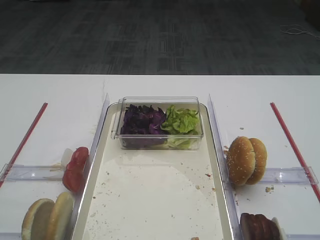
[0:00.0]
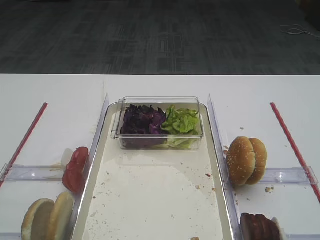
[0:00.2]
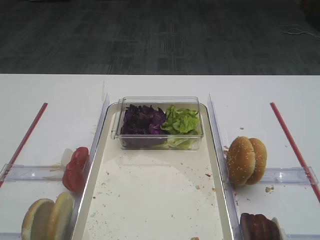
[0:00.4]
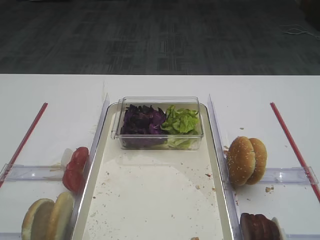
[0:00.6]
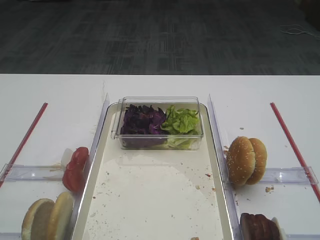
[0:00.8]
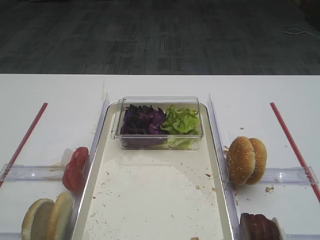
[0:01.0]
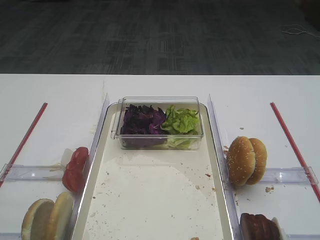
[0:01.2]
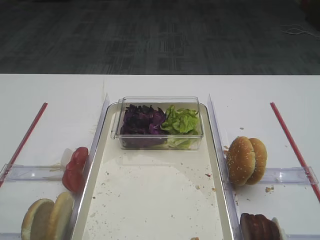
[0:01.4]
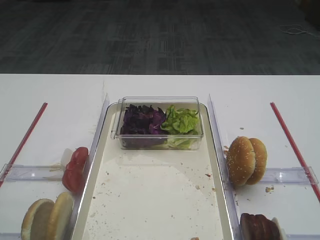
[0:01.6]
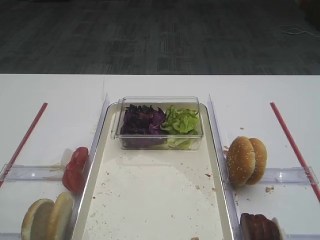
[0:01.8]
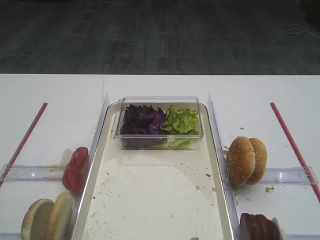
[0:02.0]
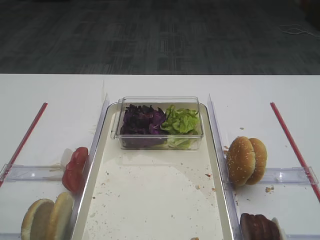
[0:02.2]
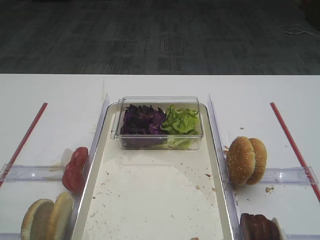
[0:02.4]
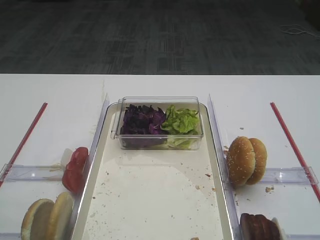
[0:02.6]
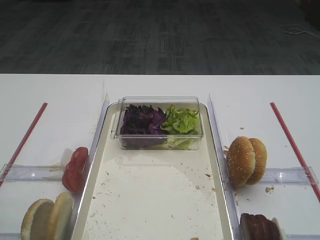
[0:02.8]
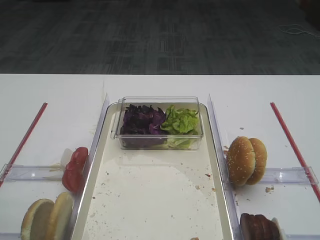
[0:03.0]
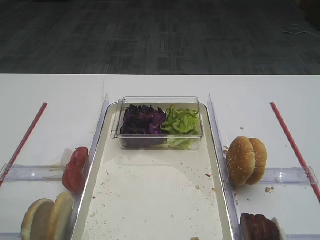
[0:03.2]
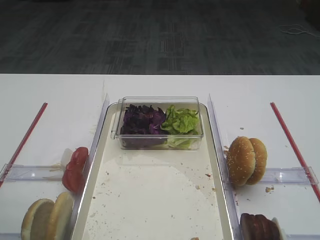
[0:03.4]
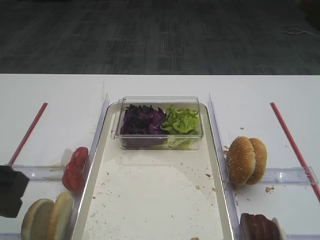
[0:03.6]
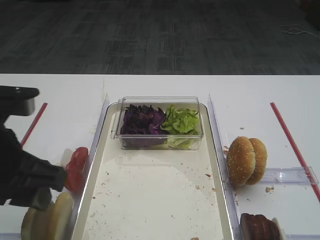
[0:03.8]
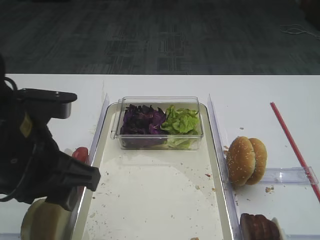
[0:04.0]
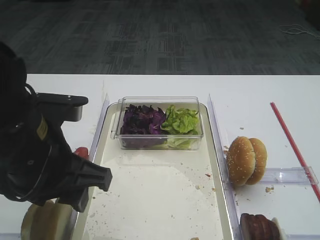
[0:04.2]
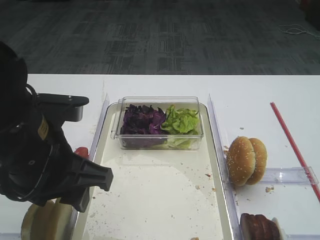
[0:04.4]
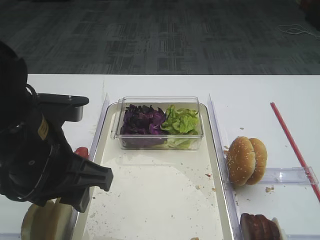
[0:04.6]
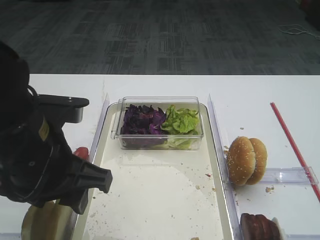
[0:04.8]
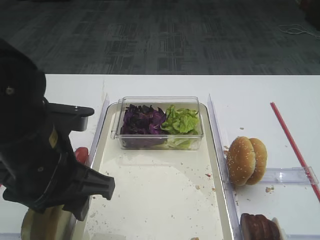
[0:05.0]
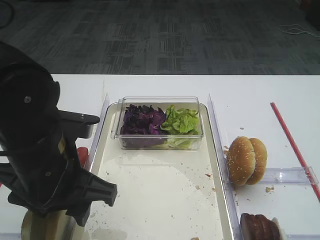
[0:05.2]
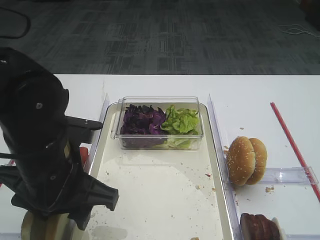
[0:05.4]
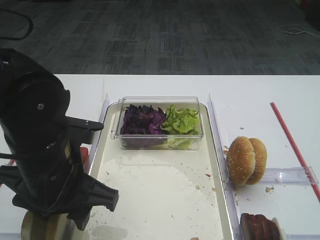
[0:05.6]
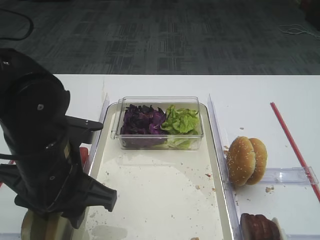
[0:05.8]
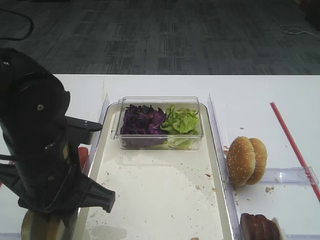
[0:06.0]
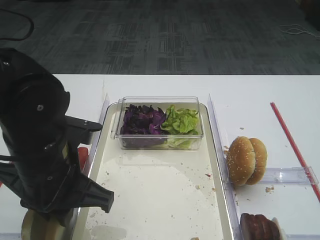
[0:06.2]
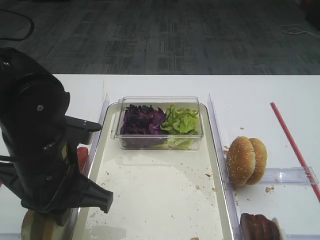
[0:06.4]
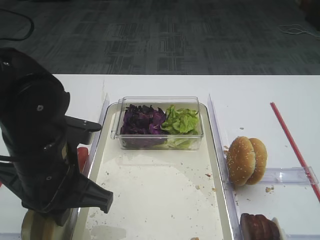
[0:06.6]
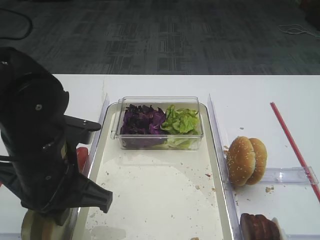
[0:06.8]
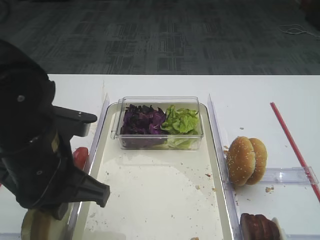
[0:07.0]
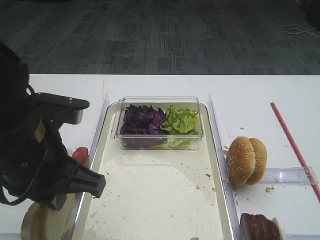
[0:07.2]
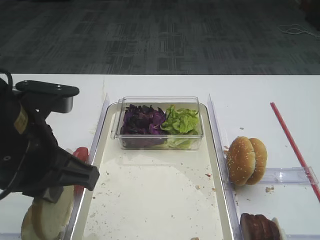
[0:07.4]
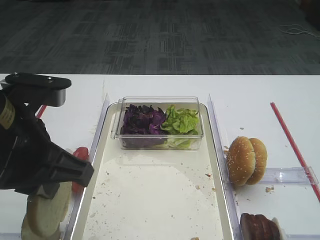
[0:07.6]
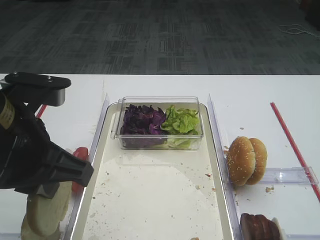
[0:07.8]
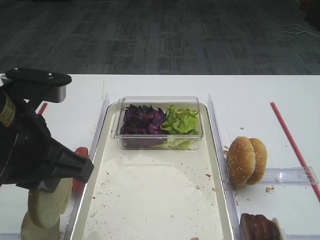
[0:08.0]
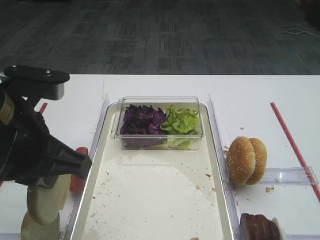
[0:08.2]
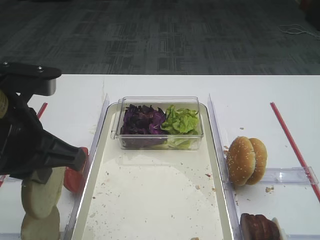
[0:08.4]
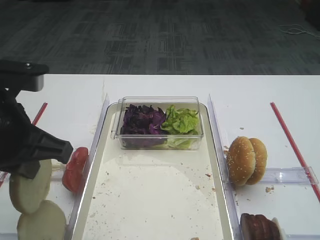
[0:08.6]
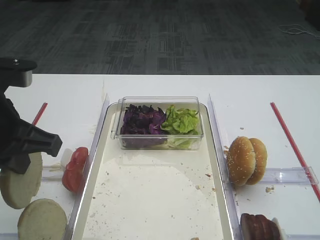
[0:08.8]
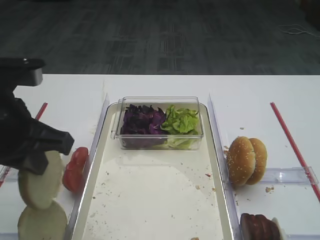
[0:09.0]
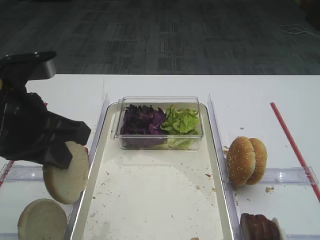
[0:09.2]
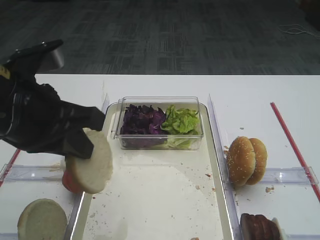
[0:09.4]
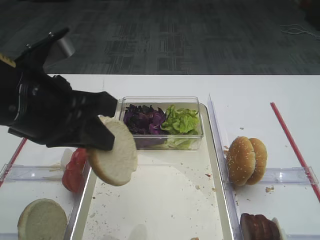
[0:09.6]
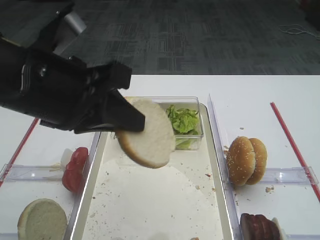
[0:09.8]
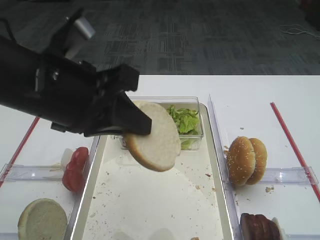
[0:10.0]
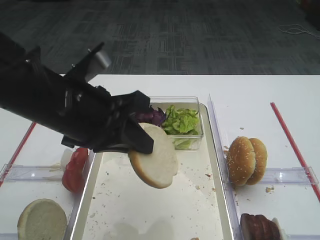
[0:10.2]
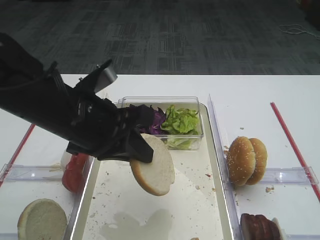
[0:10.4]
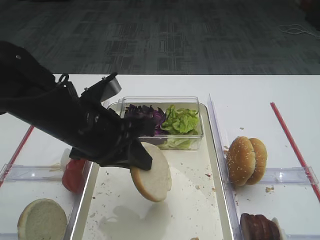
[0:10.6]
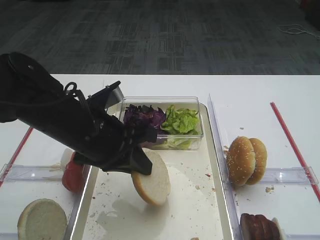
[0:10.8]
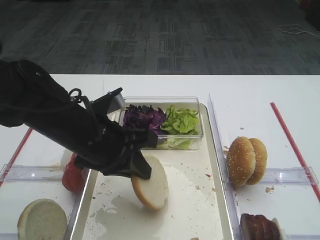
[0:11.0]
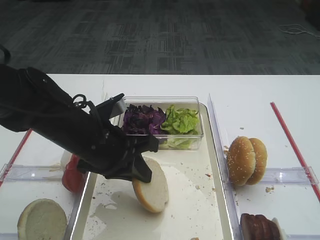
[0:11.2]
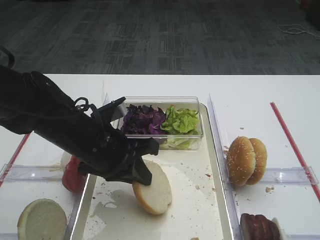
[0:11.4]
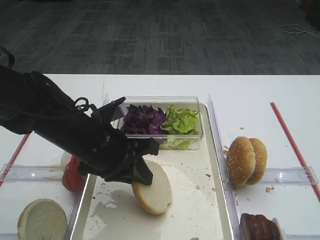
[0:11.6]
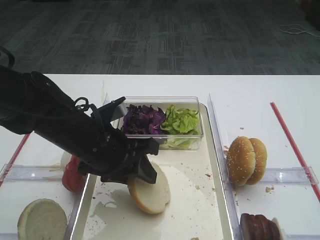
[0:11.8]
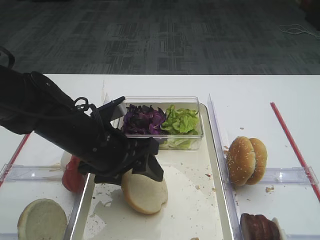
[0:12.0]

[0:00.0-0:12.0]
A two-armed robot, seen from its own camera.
Step, 0:00.0 to 0:07.8: Pick up the bread slice with the left gripper.
0:03.0 to 0:04.4: The left gripper shifts about 15 cm to the right and forward.
0:04.4 to 0:06.0: There are only small adjustments of the grippers.
0:06.0 to 0:07.6: The left gripper moves upward, some 5 cm, and closes.
0:07.6 to 0:09.0: There are only small adjustments of the grippers.
0:09.0 to 0:10.4: The left gripper is displaced to the right by some 10 cm.
0:10.4 to 0:12.0: The left gripper heads downward, covering some 10 cm, and opens its fingers.

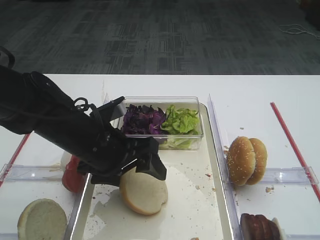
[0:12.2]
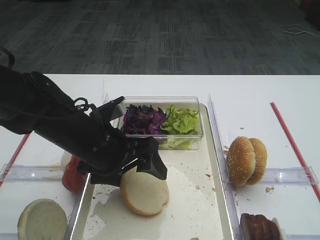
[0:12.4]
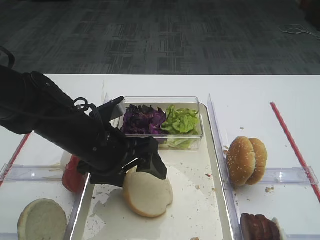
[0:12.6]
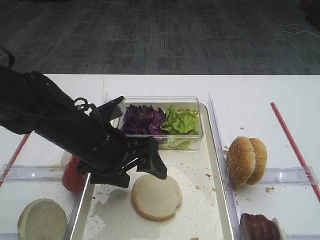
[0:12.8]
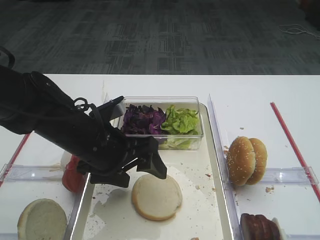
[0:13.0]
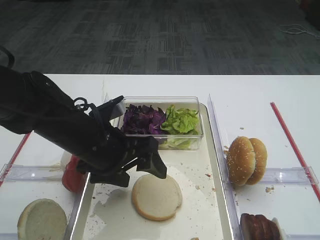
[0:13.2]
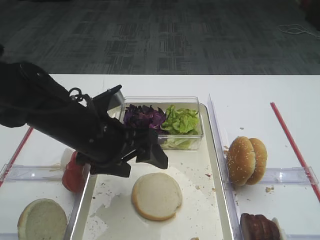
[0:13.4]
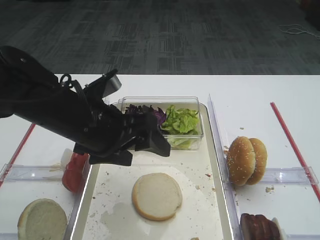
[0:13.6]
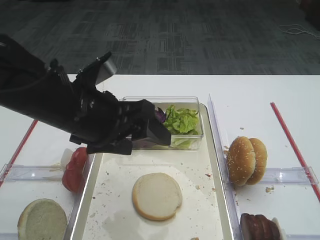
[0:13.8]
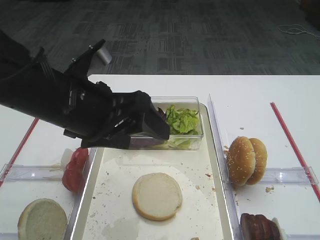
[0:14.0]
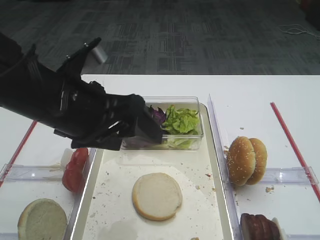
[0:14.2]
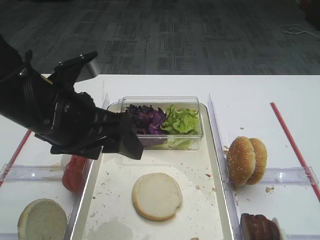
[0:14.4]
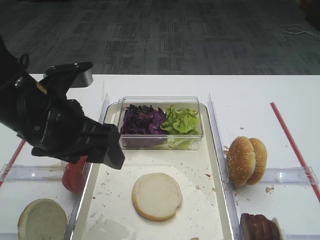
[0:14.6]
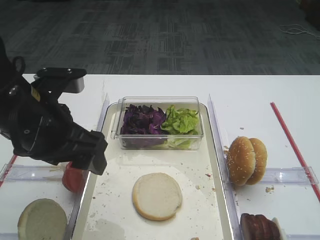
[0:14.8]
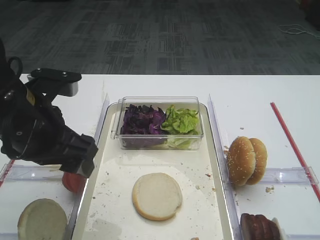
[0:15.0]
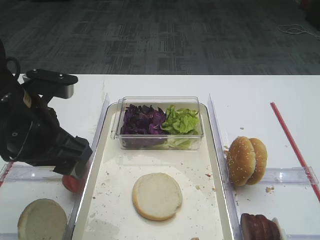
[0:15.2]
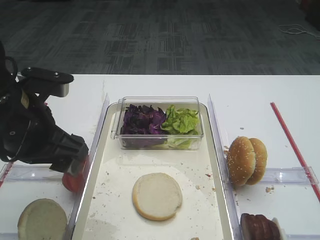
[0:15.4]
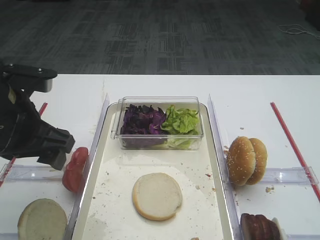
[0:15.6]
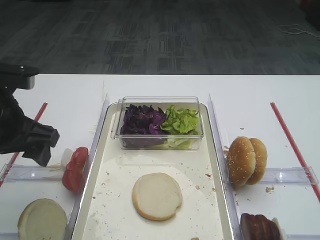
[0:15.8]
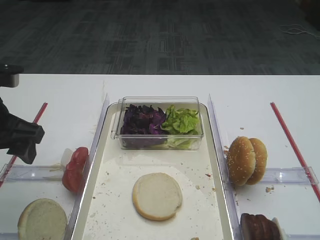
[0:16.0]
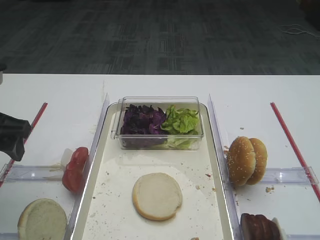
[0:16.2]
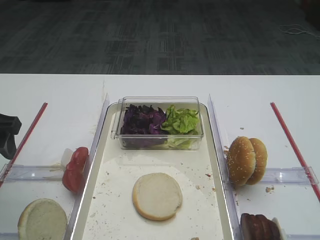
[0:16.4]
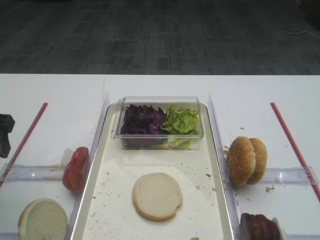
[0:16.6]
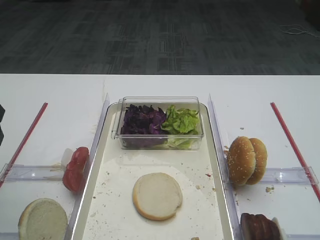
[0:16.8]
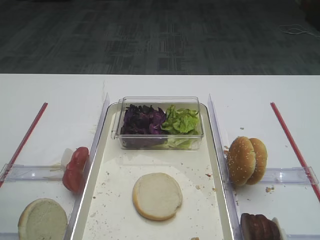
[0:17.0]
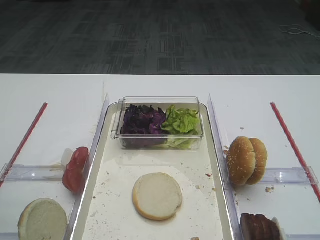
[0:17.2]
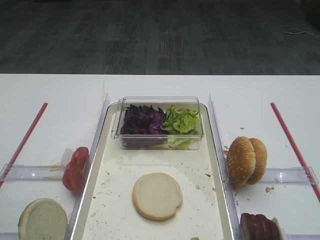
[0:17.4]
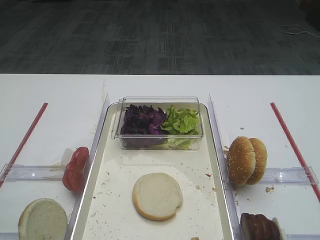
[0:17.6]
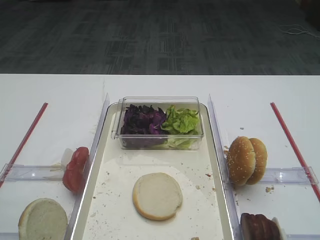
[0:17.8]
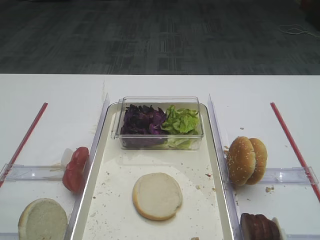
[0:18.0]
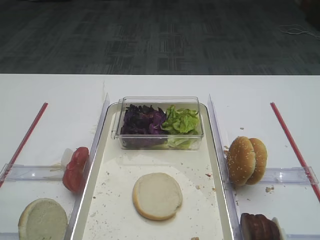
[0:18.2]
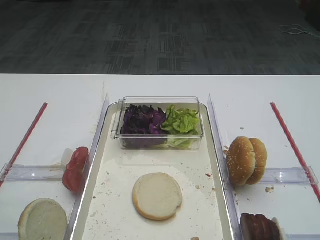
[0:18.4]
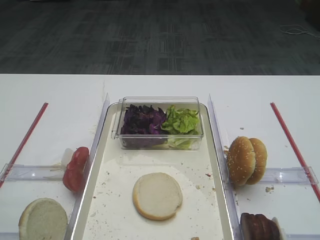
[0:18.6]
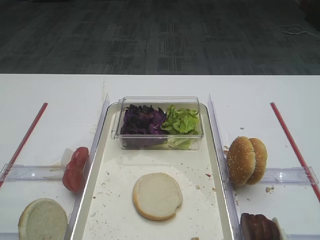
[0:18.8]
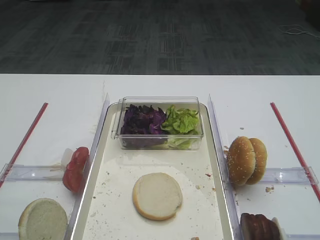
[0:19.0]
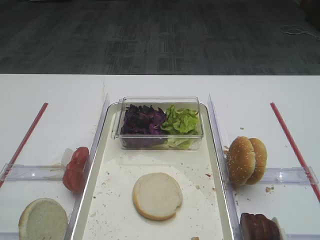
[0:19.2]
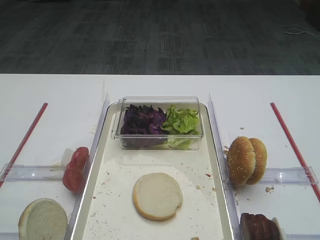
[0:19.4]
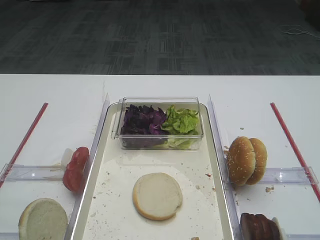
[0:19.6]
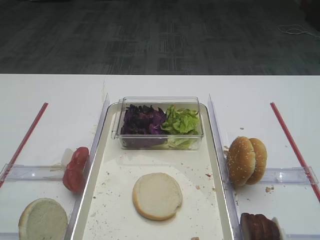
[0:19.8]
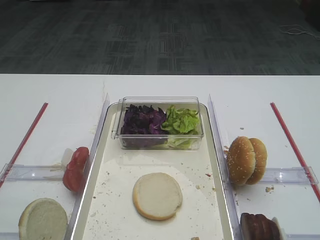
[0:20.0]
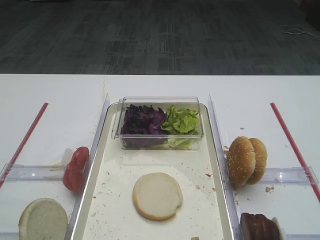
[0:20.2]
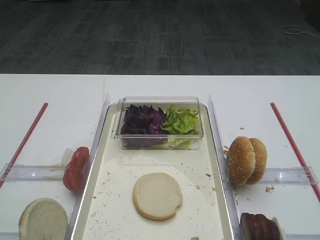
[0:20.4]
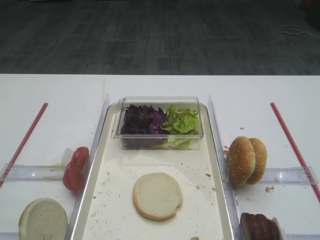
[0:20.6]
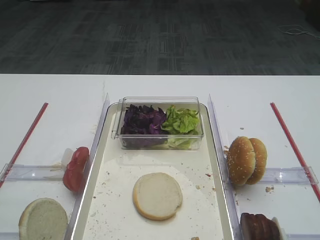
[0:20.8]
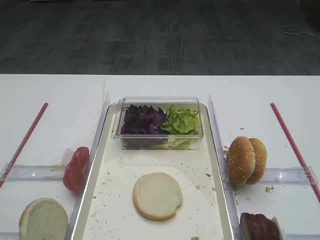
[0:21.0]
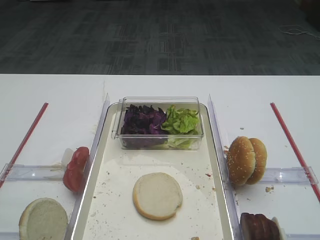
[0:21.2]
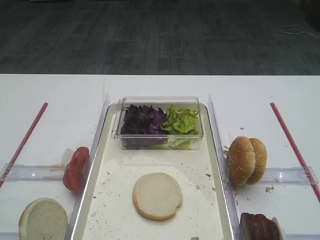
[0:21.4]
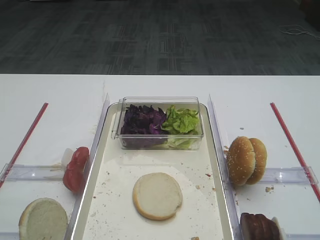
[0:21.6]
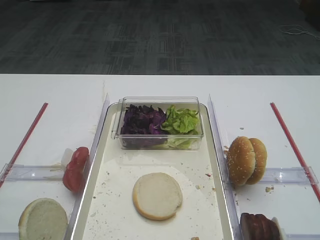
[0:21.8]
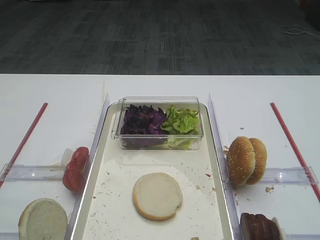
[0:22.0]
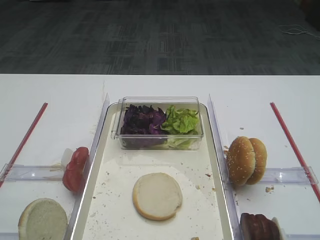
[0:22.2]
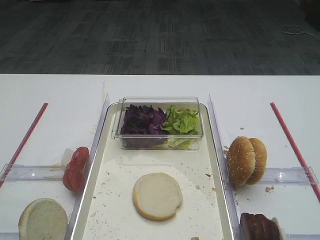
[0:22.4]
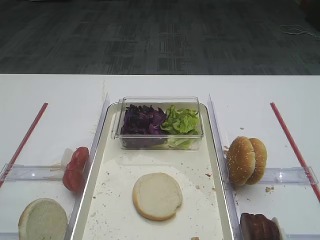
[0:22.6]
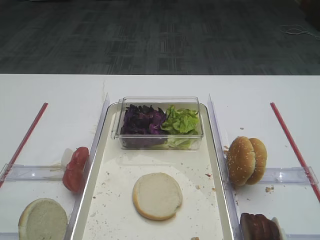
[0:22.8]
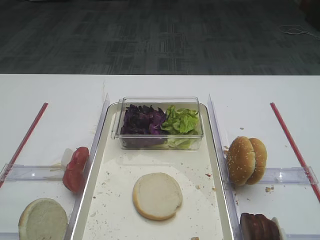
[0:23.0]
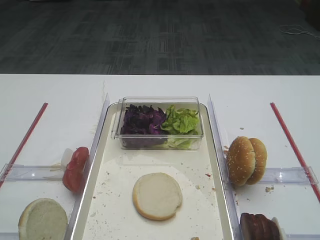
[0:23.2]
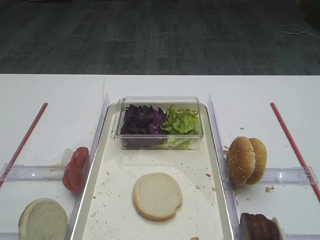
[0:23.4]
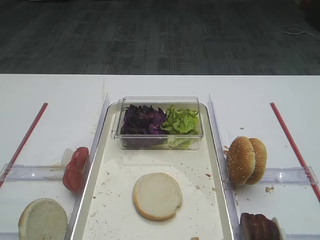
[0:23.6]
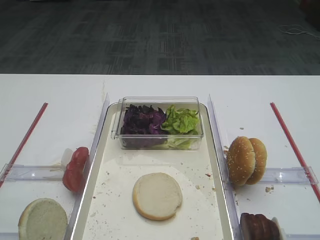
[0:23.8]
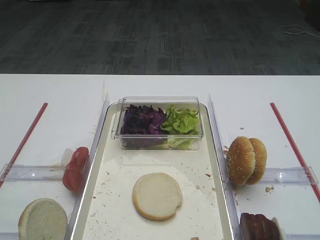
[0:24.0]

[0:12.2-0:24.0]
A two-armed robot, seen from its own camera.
0:12.2 to 0:13.6: The grippers make only small movements.
0:13.6 to 0:15.2: The left gripper moves to the left, roughly 5 cm.
0:15.2 to 0:16.6: The left gripper shifts approximately 10 cm to the left.
0:16.6 to 0:18.2: The left gripper heads backward and upward, covering about 20 cm.
0:22.6 to 0:24.0: Neither gripper changes place.
